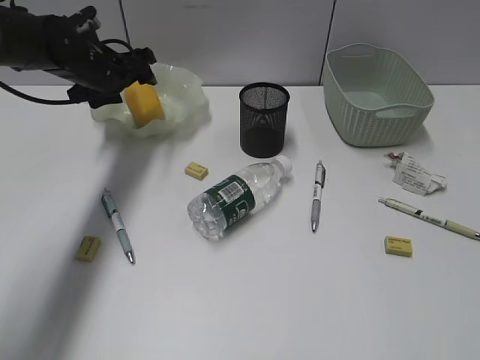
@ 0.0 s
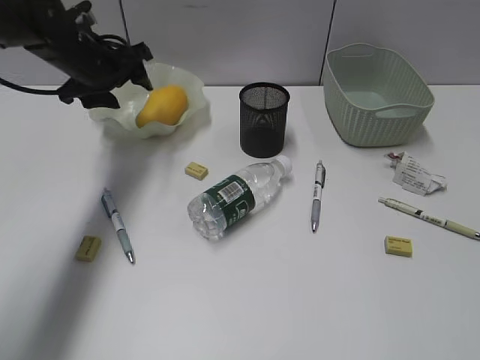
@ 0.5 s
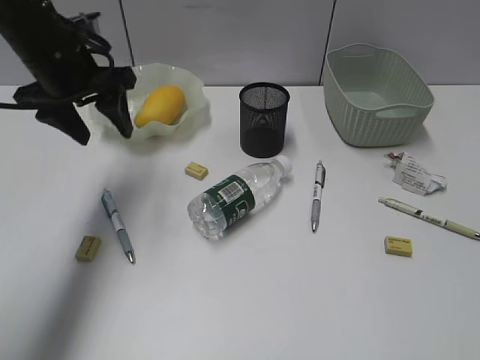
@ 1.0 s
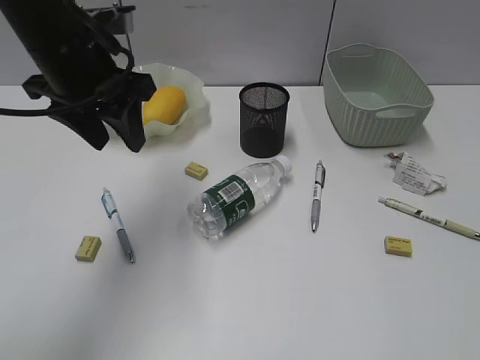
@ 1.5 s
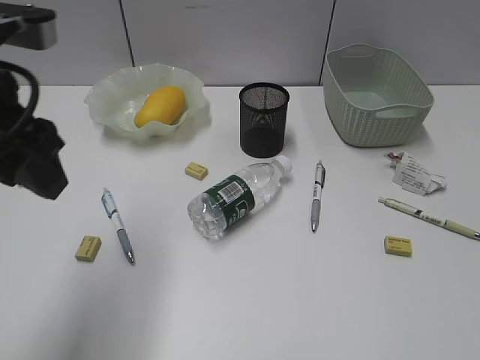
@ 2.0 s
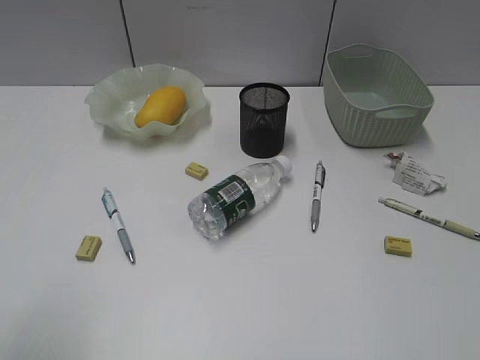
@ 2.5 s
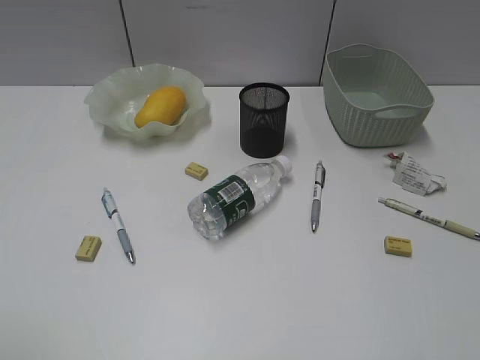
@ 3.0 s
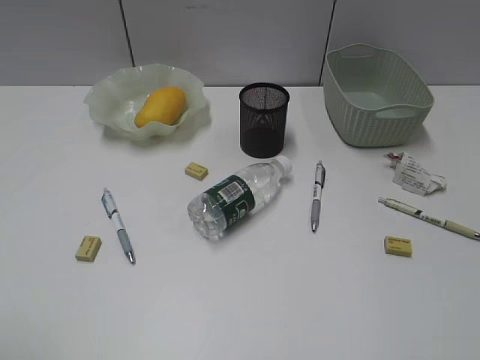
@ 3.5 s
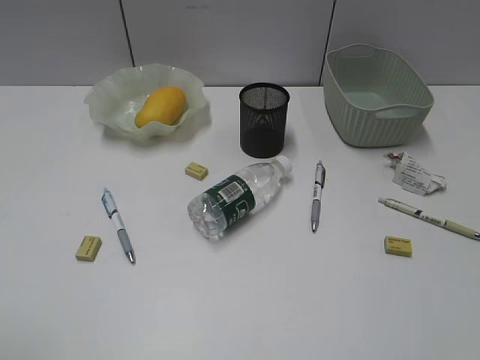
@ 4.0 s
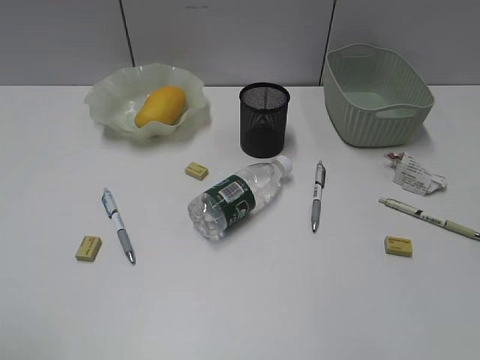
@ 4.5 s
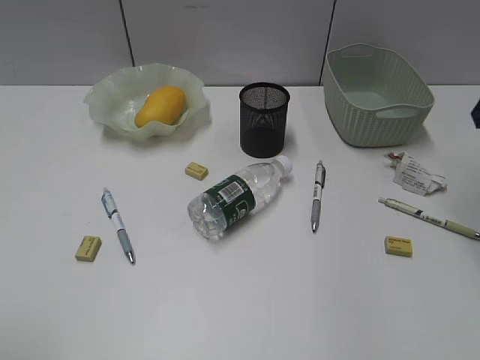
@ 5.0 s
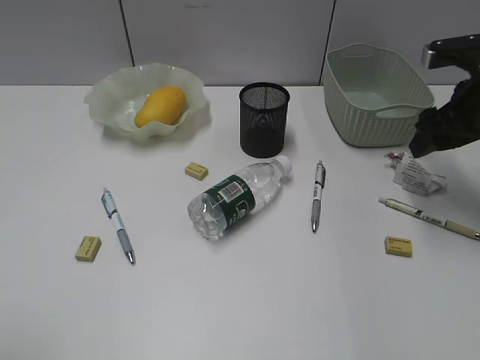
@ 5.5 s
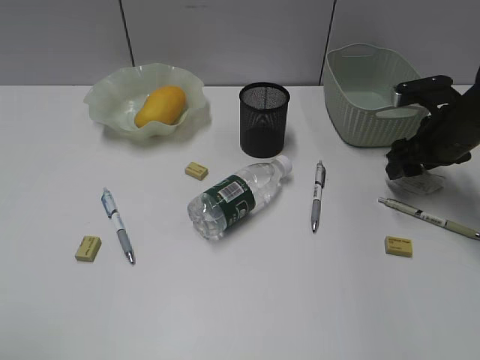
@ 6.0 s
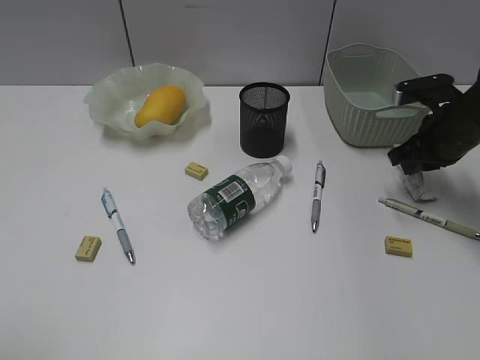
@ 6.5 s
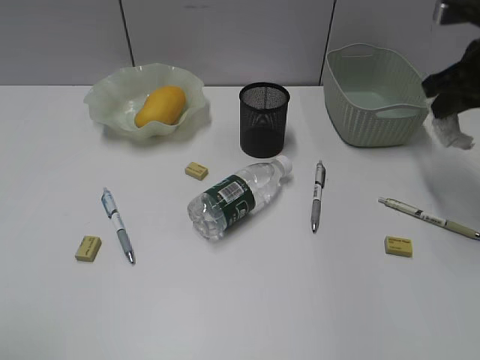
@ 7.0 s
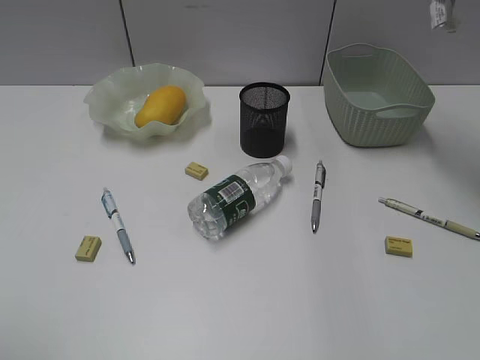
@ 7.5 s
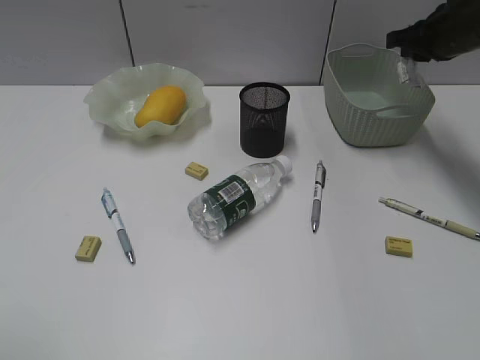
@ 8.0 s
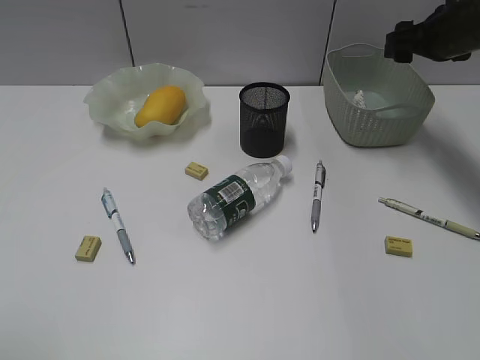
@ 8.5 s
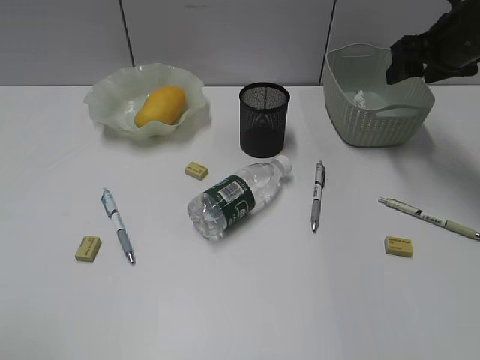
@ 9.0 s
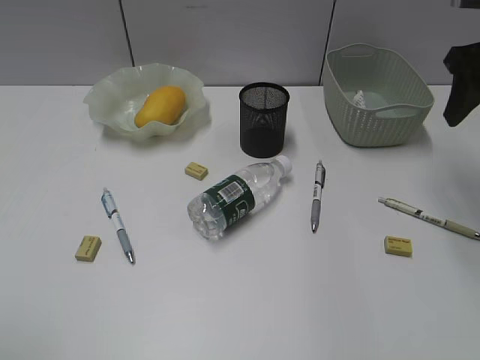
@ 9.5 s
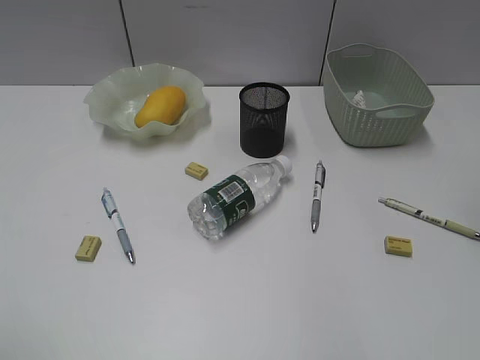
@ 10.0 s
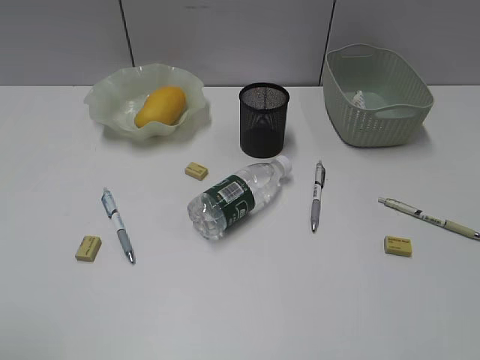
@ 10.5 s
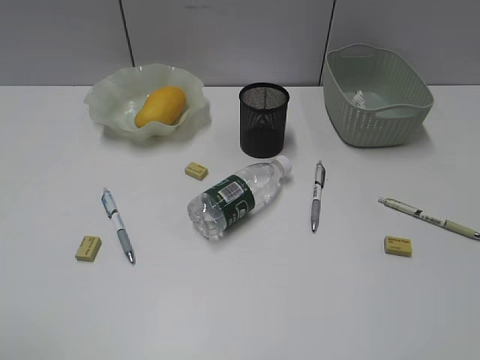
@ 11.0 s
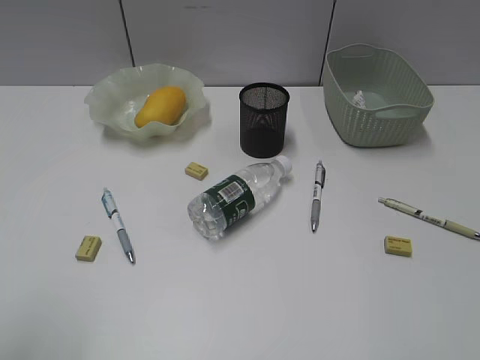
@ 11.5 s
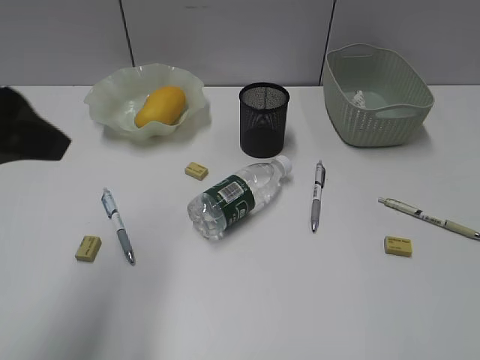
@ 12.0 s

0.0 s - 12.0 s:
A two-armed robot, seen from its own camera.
Step, 0.5 s - 6.5 s: Grasp the waste paper with right gripper.
Step, 7.0 s - 8.0 s: Place the waste paper in the basket with right gripper.
0.0 s - 2.0 s: The left gripper heads backward and upward, covering some 30 cm.
2.0 s - 4.0 s: The left gripper goes about 25 cm backward and to the left.
4.0 s - 6.0 s: The right gripper travels forward and downward by about 40 cm.
6.0 s - 8.0 s: The right gripper shifts approximately 10 cm upward and forward, and closes.
8.0 s - 10.0 s: The right gripper shifts approximately 20 cm backward and upward, and opens up.
10.0 s - 12.0 s: The left gripper is displaced forward and to the right by approximately 20 cm.

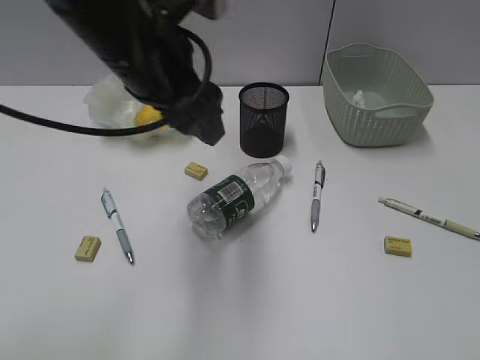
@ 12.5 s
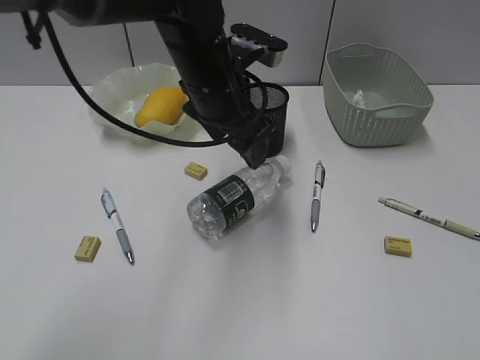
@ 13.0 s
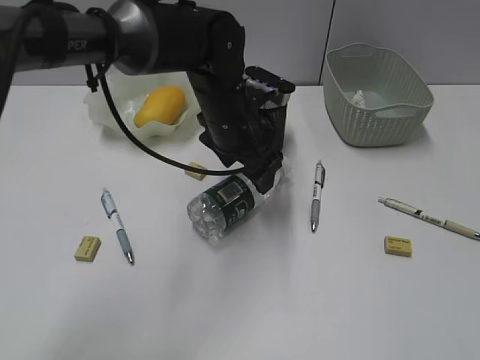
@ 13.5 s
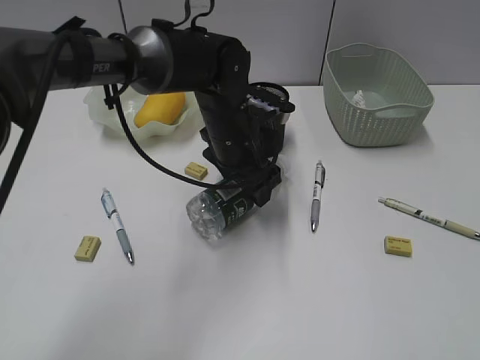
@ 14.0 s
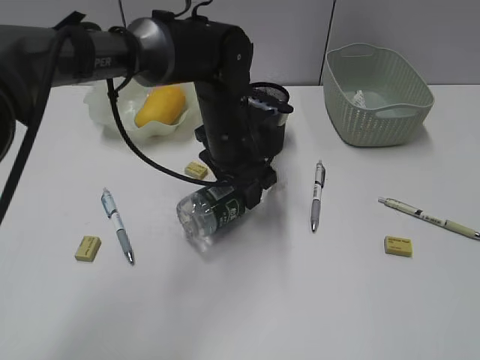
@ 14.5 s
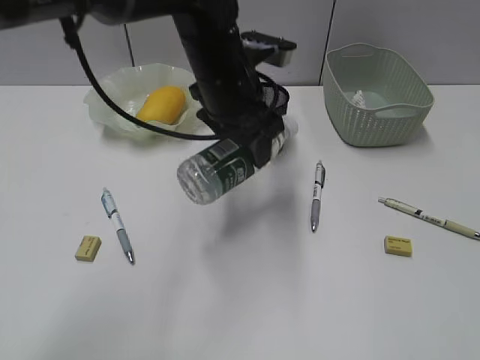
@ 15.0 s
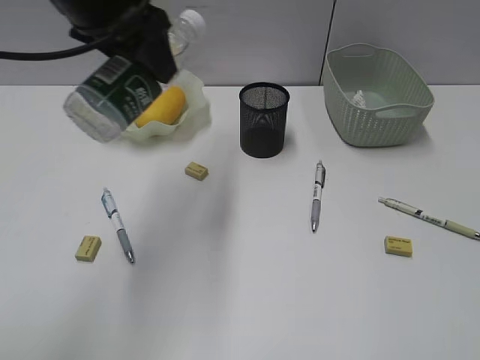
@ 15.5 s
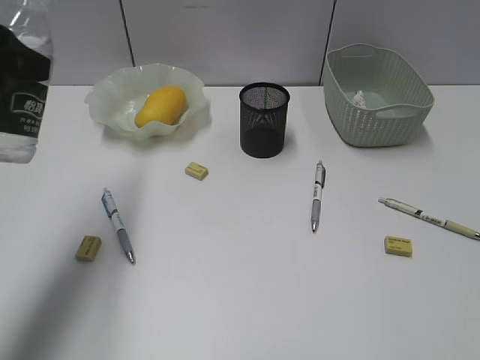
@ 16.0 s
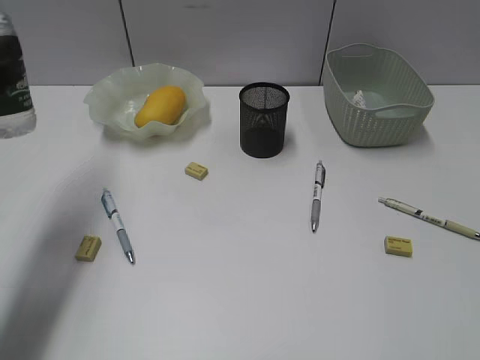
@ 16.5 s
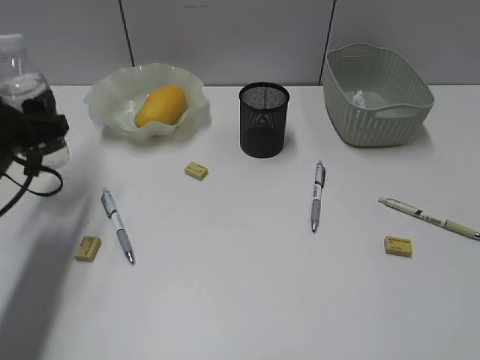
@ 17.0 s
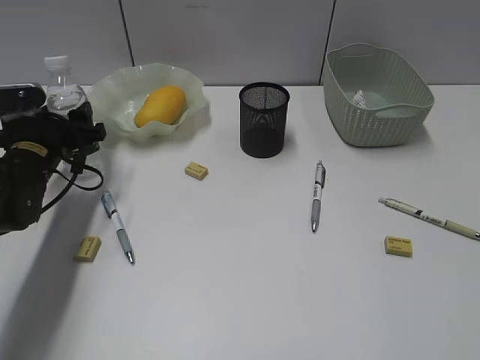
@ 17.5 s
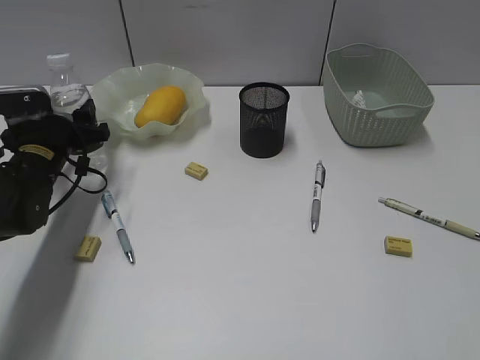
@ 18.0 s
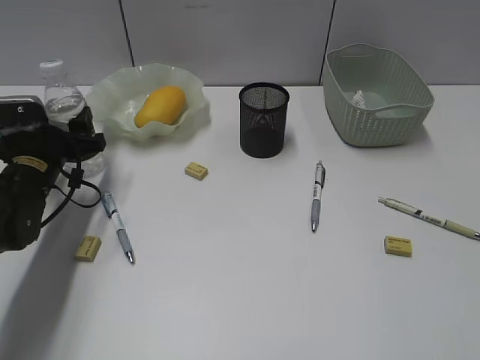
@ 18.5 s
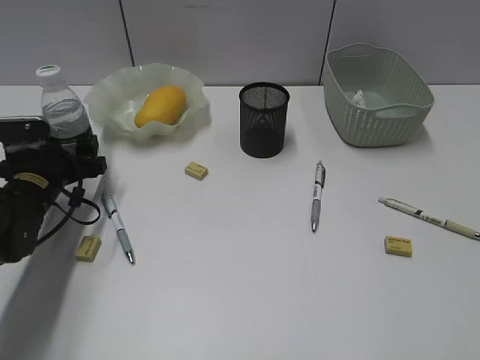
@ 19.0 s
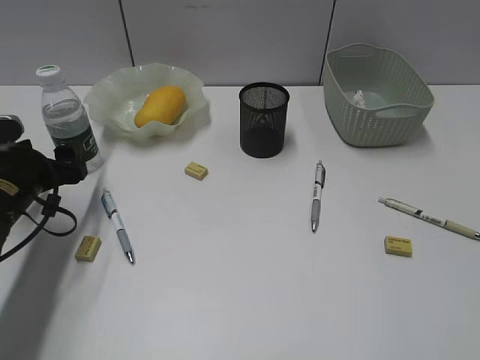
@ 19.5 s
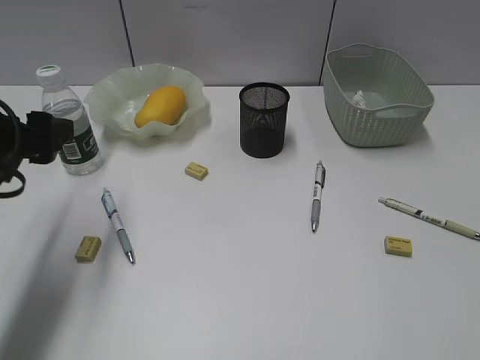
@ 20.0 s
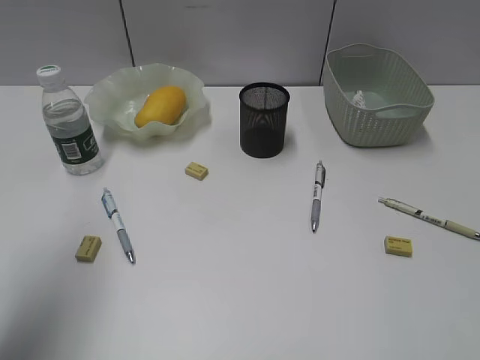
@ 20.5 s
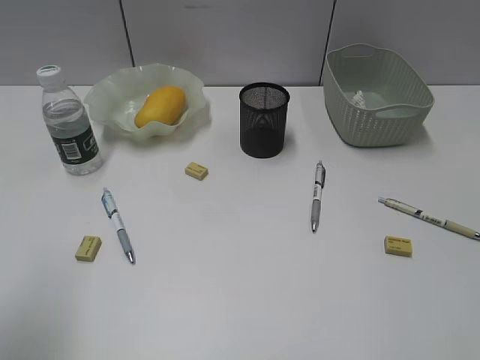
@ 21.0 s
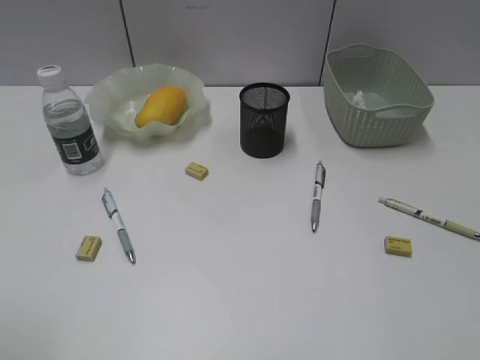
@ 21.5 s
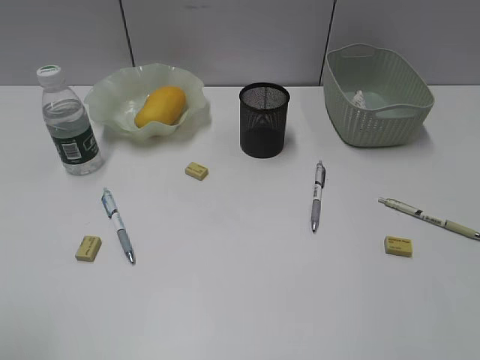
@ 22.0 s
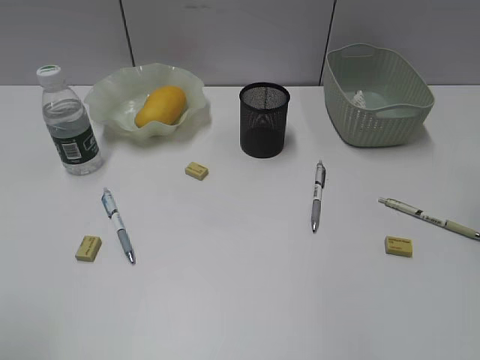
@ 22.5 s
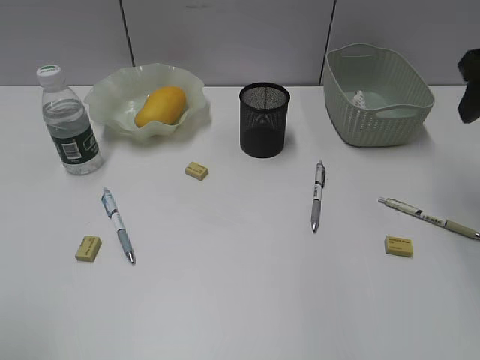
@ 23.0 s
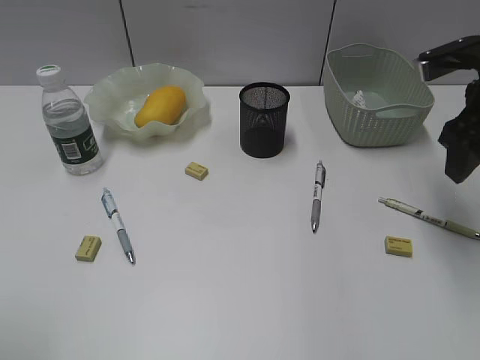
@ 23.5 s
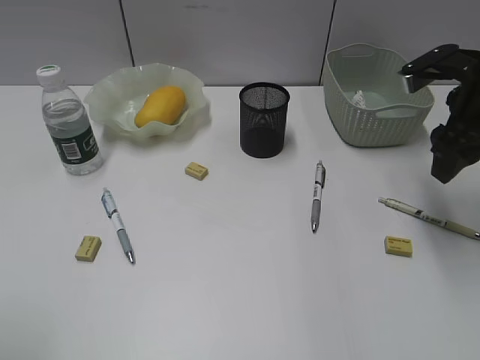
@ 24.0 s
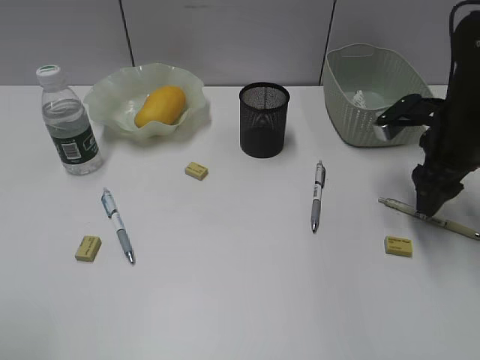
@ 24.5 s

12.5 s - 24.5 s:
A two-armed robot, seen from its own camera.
Step, 14.5 s - 19.0 s: Stand the bottle with left gripper.
12.5 s - 14.5 s: The left gripper is displaced downward, to the right and forward by approximately 20 cm.
14.5 s - 16.5 s: The left gripper is displaced to the left, backward and upward by some 30 cm.
16.5 s - 18.5 s: The left gripper moves downward and forward, approximately 20 cm.
18.5 s - 20.5 s: The left gripper shifts about 25 cm upward and backward.
20.5 s - 22.5 s: The left gripper goes some 15 cm backward.
22.5 s - 24.5 s: The right gripper travels downward and forward by approximately 20 cm.

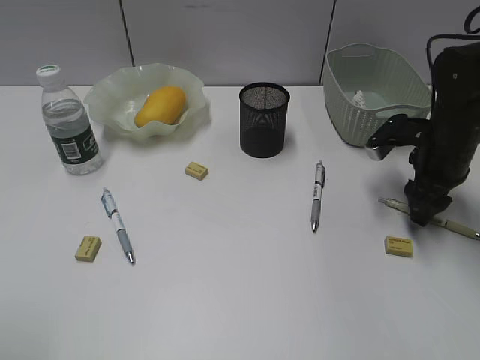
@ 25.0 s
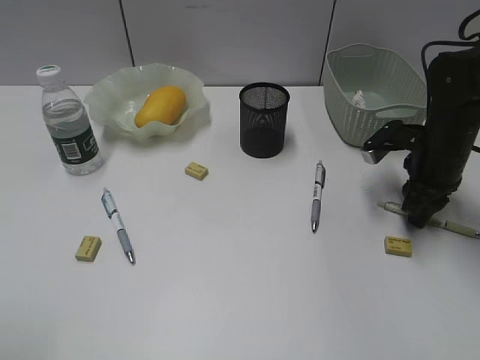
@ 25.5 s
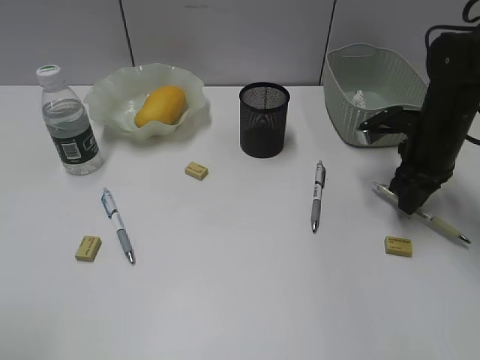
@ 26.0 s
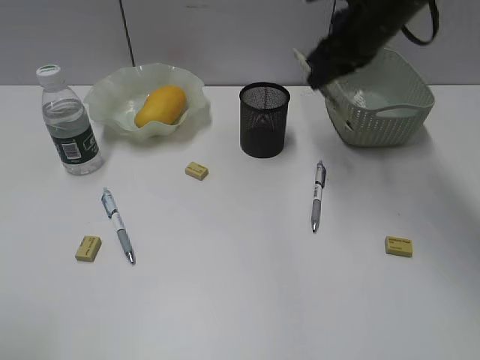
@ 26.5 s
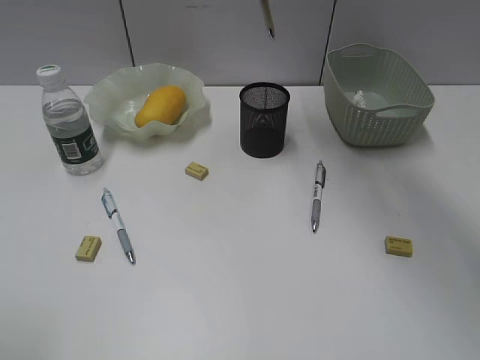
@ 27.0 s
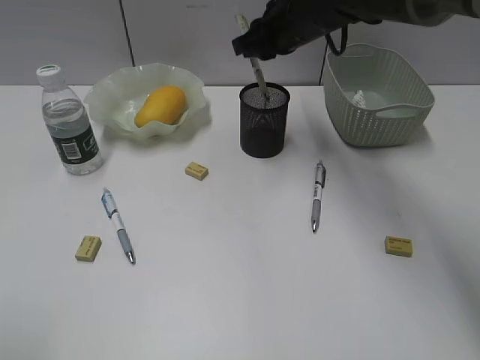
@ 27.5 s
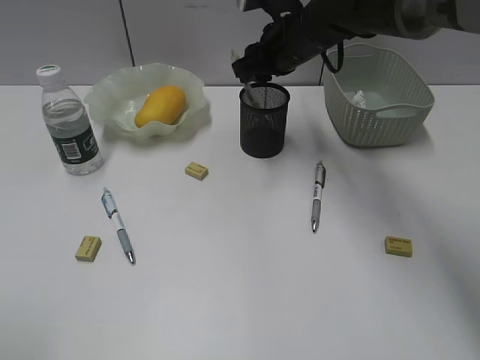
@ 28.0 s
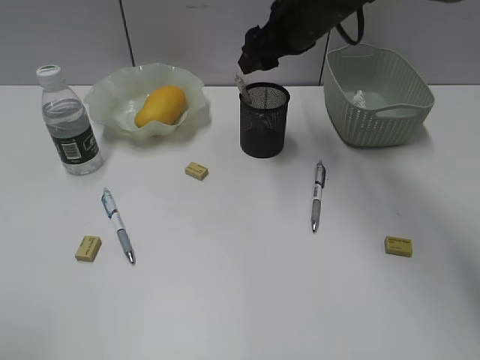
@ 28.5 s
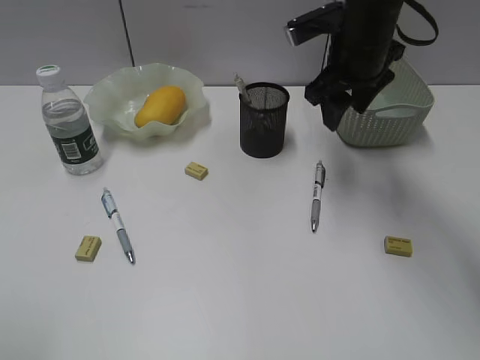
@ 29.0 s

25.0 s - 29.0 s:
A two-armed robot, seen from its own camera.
Step, 26.0 s - 28.0 s: Place the yellow pen in pen holder with right gripper.
25.0 s - 27.0 s: The right gripper goes some 25 cm upward, to the left and forward, and closes up.
27.0 s - 29.0 s: The right gripper heads downward, covering roughly 10 cm, and opens its fingers.
